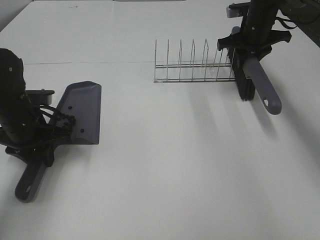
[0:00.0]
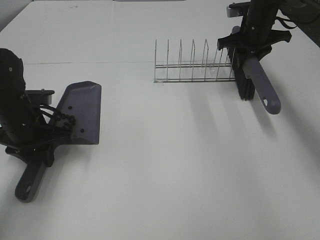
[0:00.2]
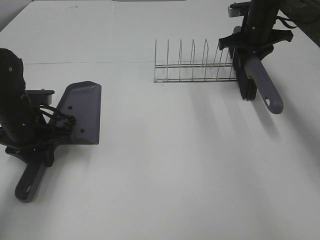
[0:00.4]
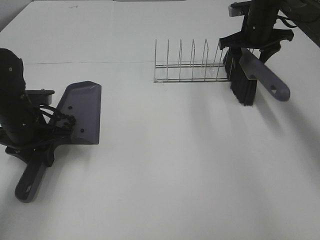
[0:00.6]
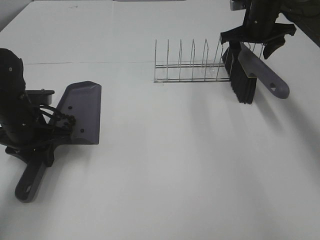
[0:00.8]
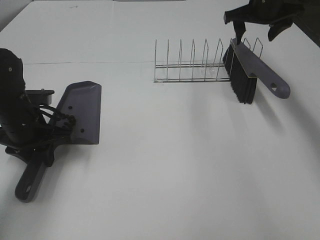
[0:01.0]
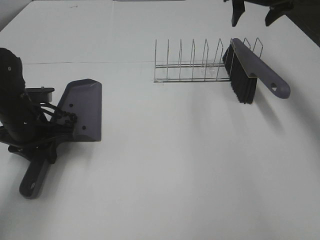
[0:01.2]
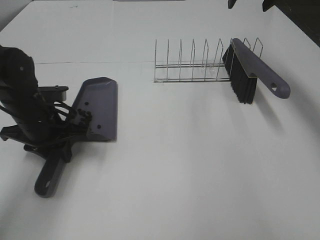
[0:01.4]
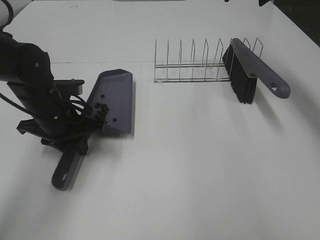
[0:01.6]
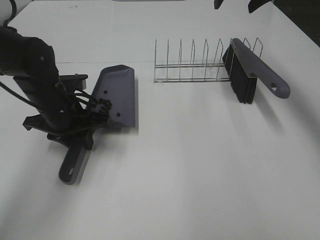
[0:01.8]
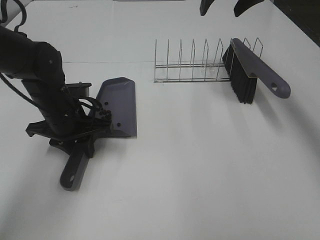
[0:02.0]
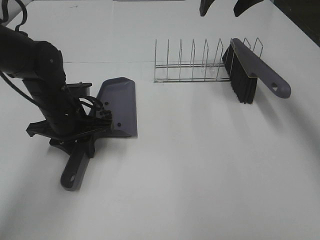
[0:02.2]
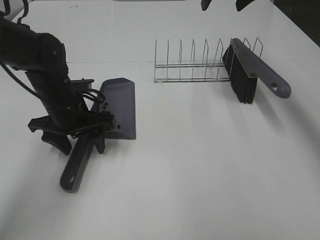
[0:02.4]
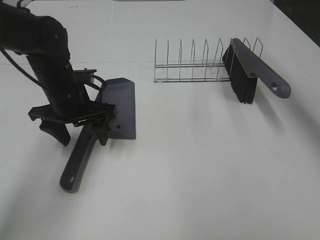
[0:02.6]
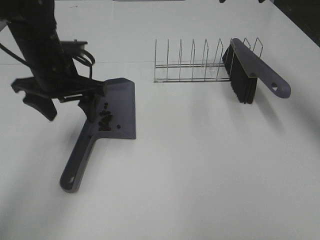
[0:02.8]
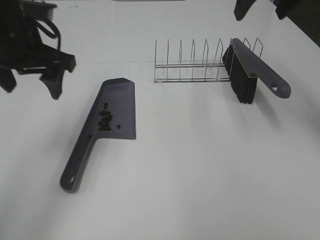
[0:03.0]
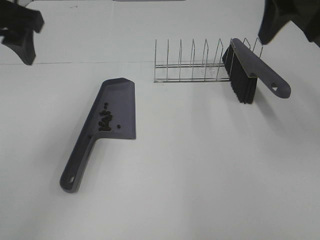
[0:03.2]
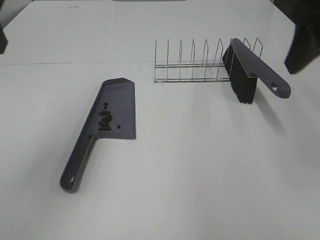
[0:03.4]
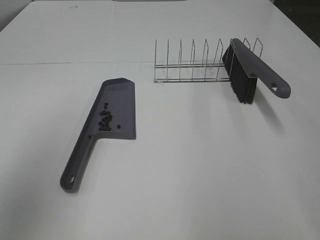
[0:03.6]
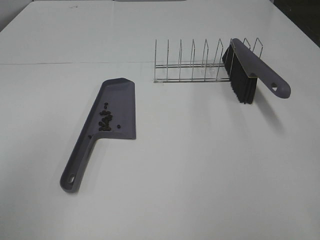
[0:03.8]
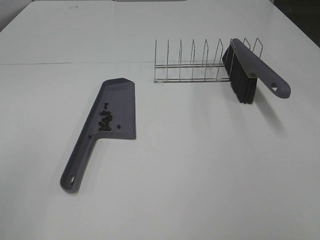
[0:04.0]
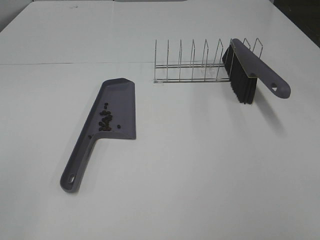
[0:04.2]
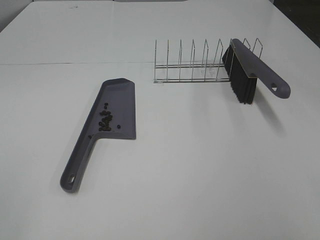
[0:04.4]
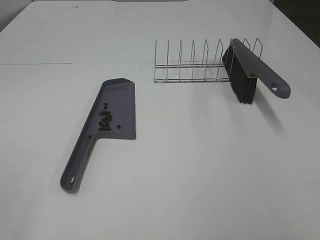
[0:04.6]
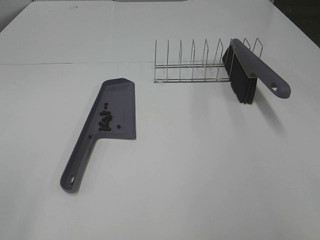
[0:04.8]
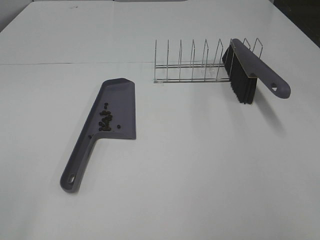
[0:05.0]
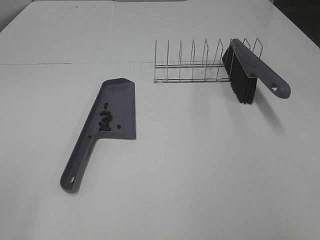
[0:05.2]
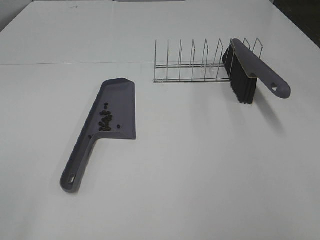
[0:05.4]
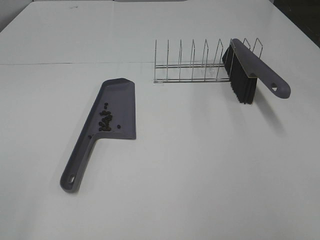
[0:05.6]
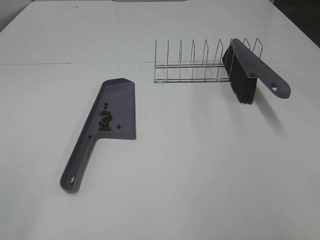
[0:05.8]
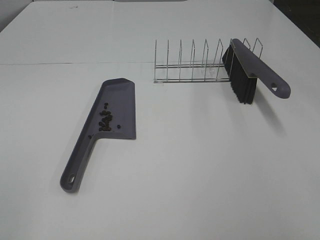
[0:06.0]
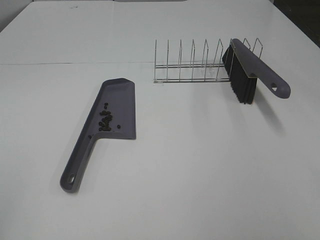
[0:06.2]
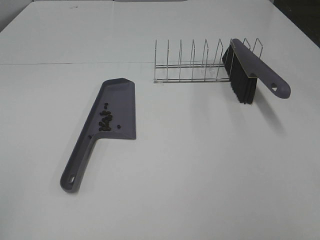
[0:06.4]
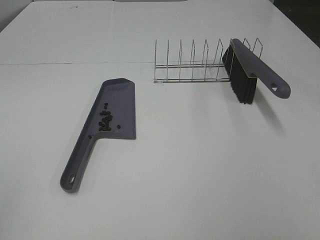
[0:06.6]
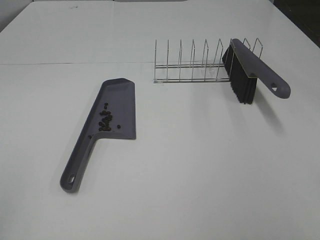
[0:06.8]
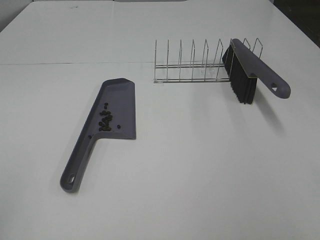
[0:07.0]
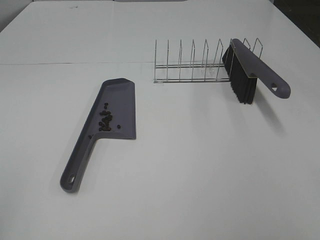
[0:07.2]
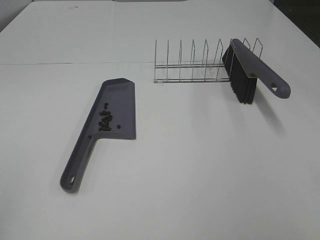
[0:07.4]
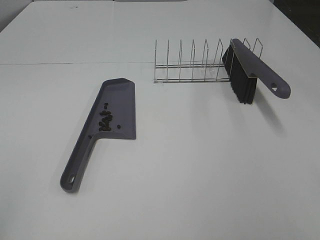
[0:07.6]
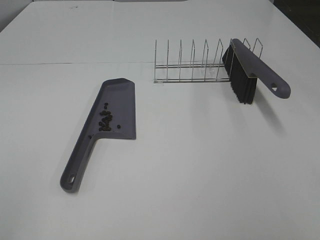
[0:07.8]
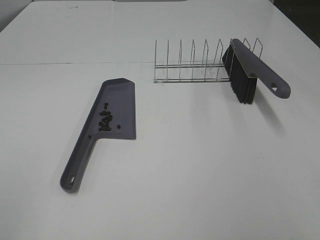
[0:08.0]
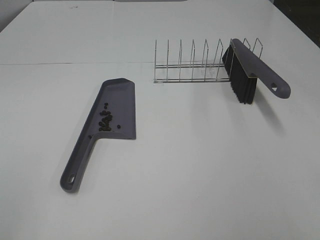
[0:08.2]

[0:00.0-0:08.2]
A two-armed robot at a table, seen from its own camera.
Task of the whole recording: Sweep Coffee Bean.
Step, 0:00.8 to 0:02.4: Left hand:place the dustpan on the table.
0:00.0 to 0:01.6: The right gripper goes approximately 15 cm upward, and opens, while the left gripper moves to the right, approximately 5 cm.
0:01.6 to 0:03.2: The left gripper travels upward by roughly 25 cm, and opens, while the right gripper shifts about 20 cm backward.
0:03.2 to 0:05.0: The left gripper travels backward and to the left by approximately 30 cm, while the right gripper moves backward, approximately 30 cm.

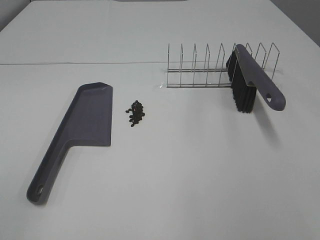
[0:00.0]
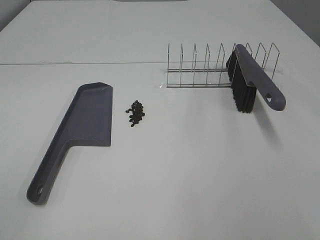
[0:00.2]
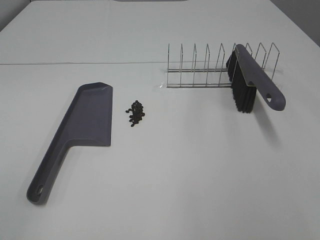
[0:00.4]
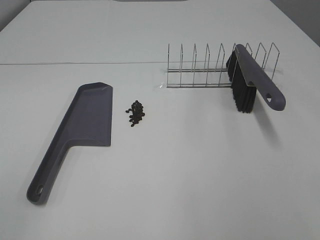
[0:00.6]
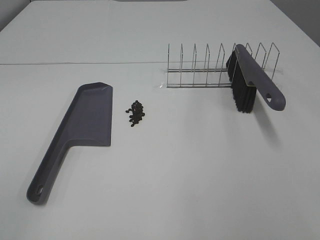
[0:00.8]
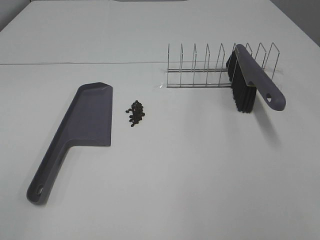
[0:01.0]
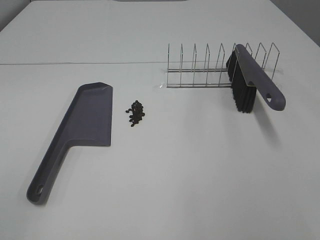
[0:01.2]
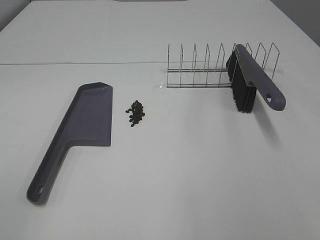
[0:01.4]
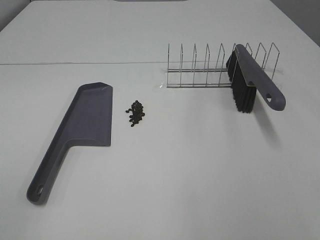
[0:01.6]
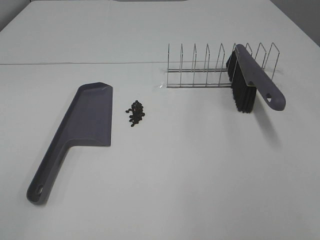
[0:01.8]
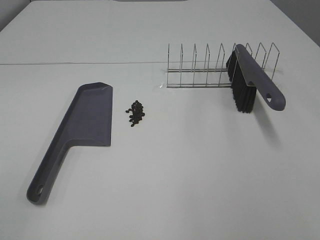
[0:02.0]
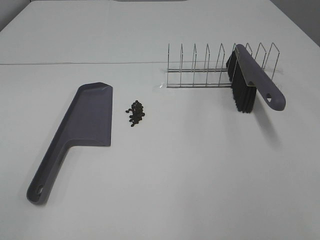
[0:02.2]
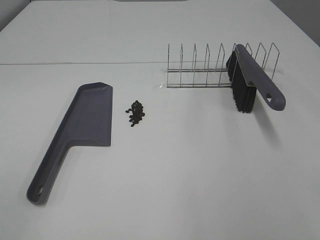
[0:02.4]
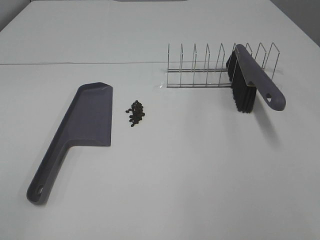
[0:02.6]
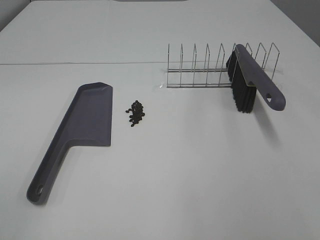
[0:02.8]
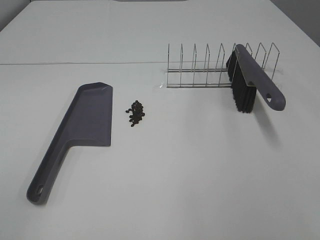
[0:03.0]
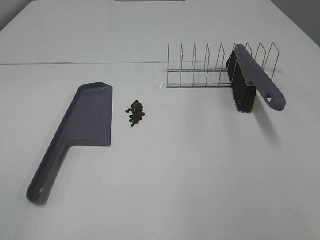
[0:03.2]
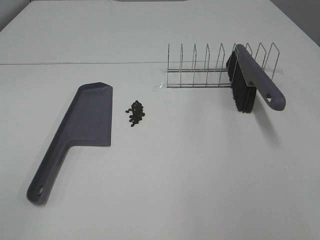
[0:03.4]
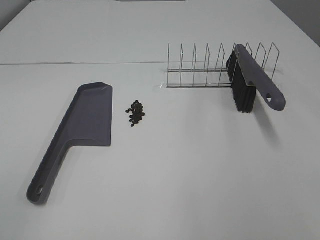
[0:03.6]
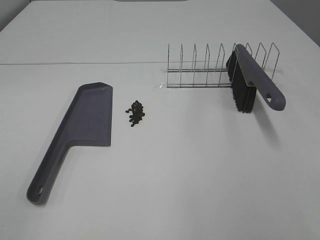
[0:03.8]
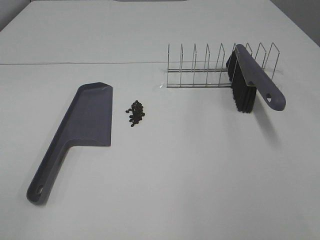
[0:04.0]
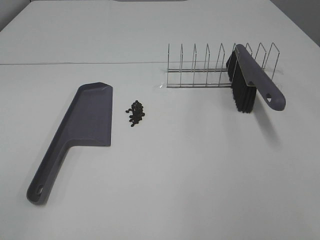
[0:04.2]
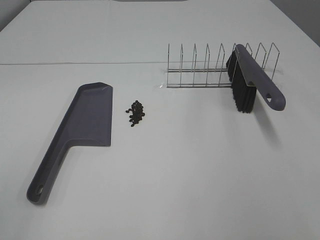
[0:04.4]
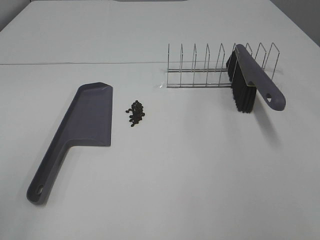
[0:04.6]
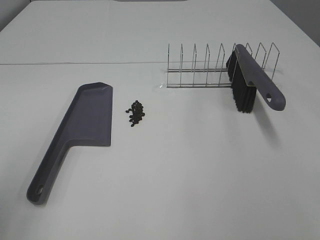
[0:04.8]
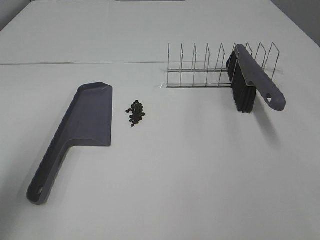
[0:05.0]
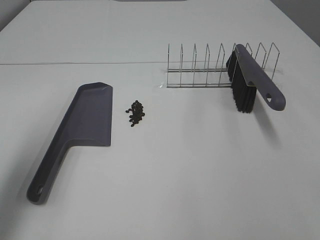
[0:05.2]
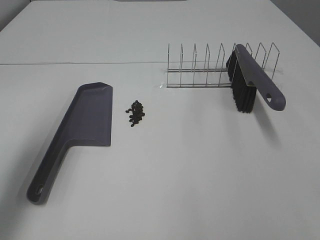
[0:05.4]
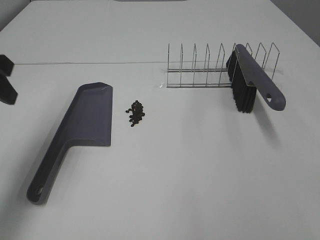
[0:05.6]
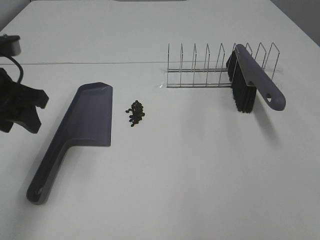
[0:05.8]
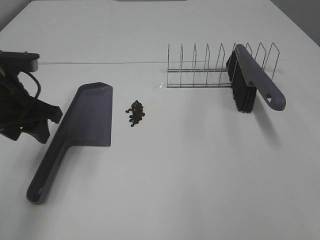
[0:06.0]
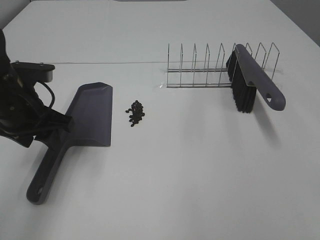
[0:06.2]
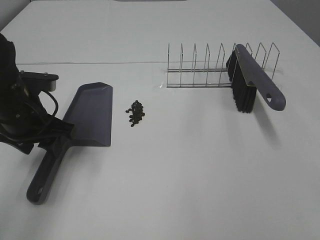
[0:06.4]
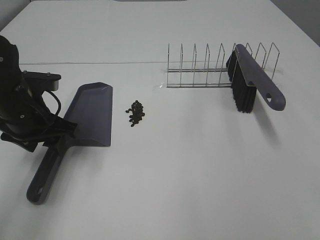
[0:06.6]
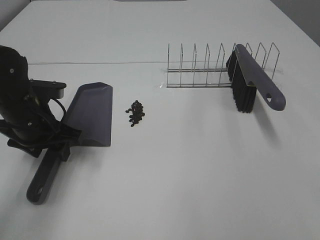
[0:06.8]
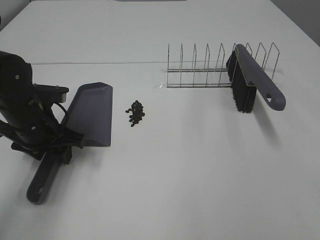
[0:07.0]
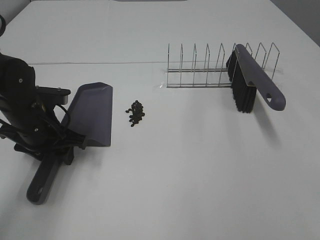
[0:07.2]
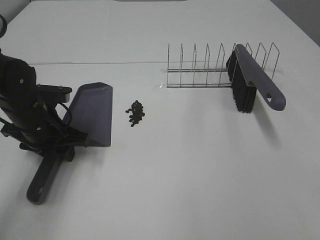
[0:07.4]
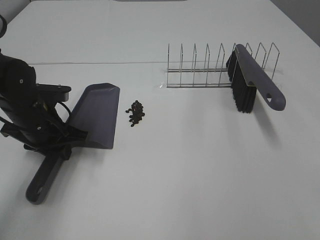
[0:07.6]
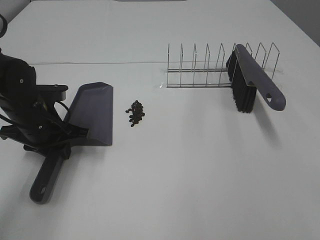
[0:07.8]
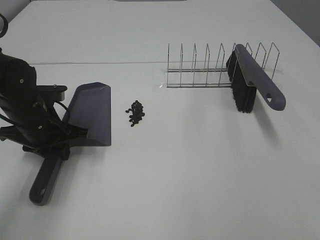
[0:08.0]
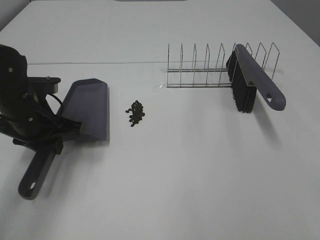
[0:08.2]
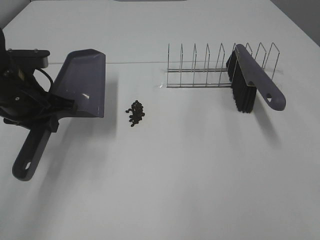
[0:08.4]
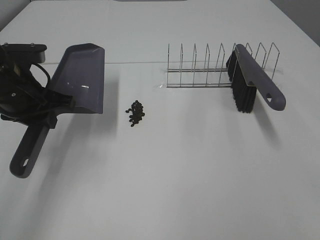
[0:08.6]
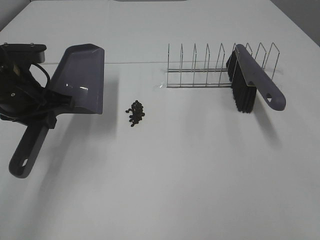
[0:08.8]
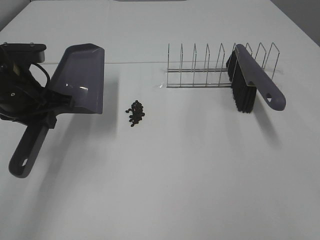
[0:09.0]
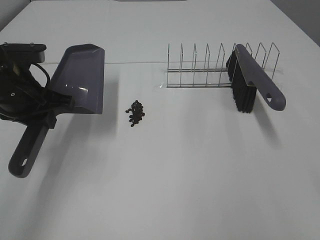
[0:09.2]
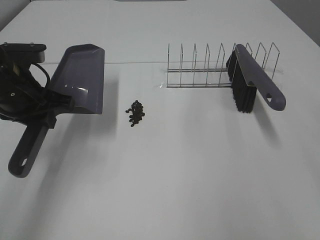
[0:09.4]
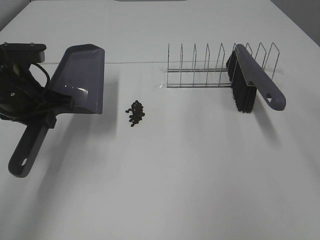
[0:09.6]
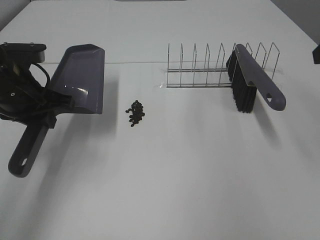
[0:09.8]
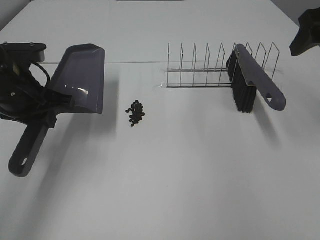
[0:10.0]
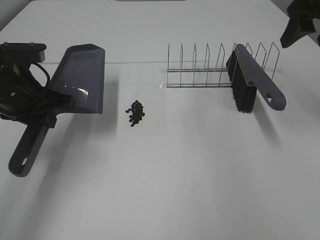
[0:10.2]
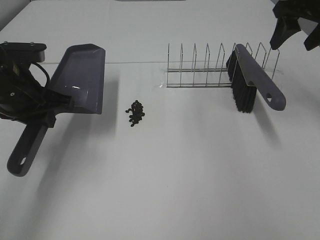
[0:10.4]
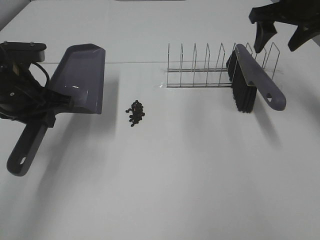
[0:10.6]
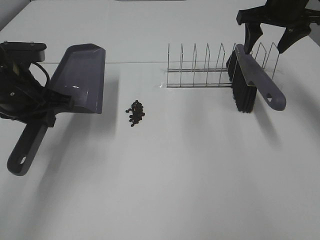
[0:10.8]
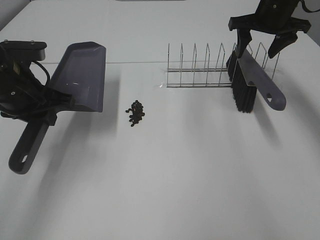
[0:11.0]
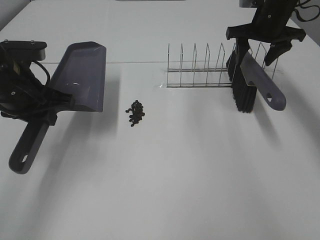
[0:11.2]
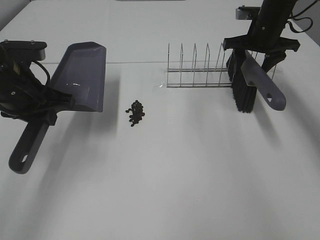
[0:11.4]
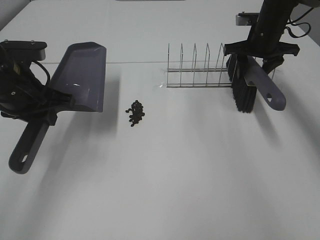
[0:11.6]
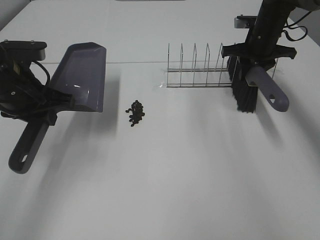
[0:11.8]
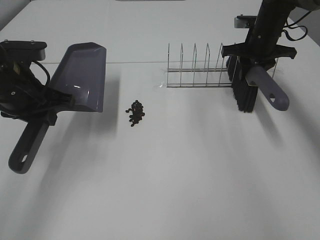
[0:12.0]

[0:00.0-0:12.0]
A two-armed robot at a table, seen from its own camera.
Task of the whole recording: Sweep Coffee Bean.
Step, 0:00.0 to 0:07.8: Left hand: grab the dustpan.
Step, 0:08.6 to 0:11.8: Right hand:grab the broom.
0:00.0 to 0:03.0: Both grippers stay about where they are.
0:04.4 to 0:06.0: The left gripper goes roughly 30 cm forward.
0:06.0 to 0:07.6: The left gripper moves downward, about 10 cm, and closes.
0:07.6 to 0:09.0: The left gripper travels upward by approximately 10 cm.
0:09.0 to 0:10.4: The right gripper shifts approximately 40 cm forward.
0:10.4 to 0:12.0: The right gripper heads downward and forward, covering some 15 cm, and closes its fingers.

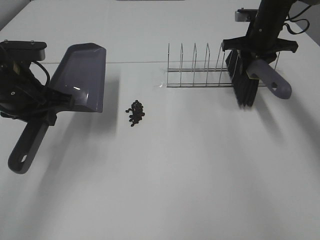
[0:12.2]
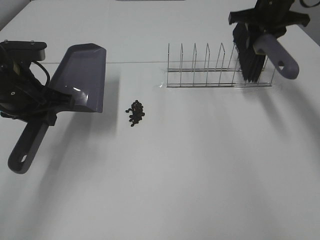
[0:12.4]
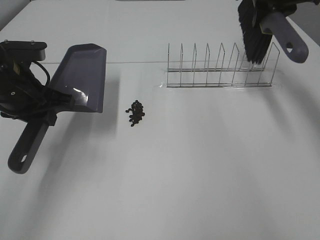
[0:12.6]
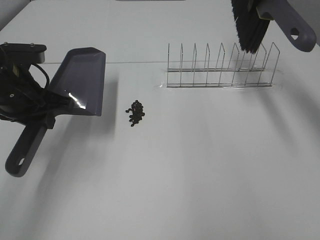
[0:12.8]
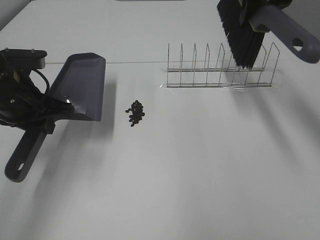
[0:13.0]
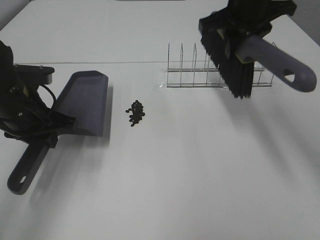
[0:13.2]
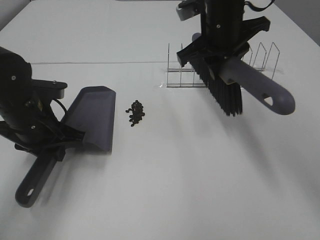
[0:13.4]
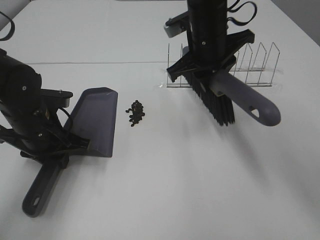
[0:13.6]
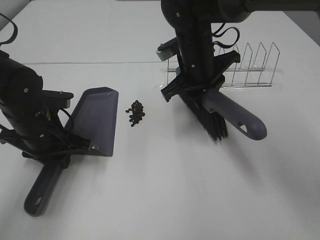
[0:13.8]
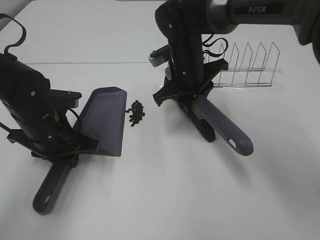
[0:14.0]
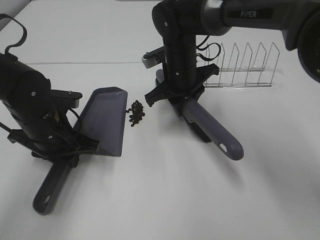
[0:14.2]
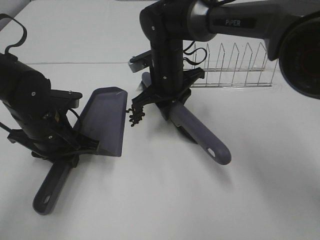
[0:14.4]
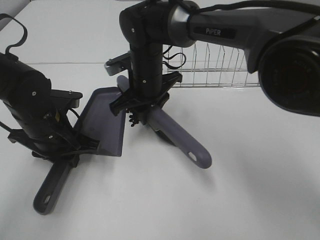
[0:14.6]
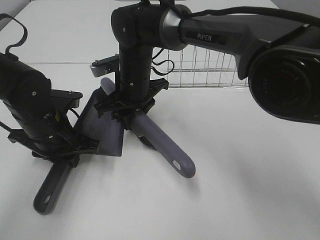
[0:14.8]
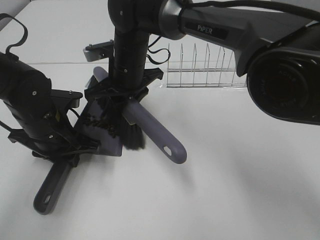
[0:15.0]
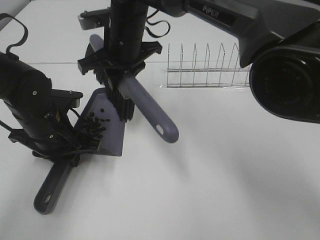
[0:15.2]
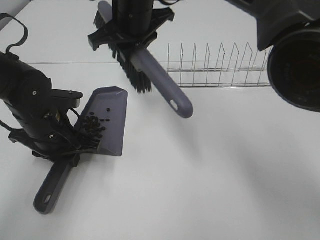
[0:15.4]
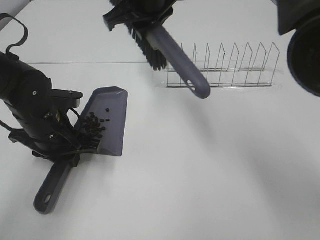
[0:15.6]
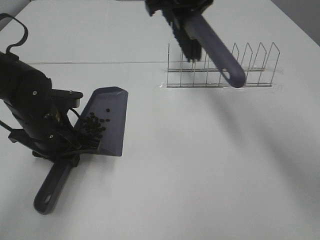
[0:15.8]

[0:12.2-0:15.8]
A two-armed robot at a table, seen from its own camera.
Task of the whole recording: Sweep Coffee Bean.
Step, 0:12.2 to 0:14.2: Left hand: move the dustpan to the left side of the coffee beans.
Step, 0:12.2 to 0:15.2: Right hand:sweep the coffee beans into the dustpan.
0:12.2 to 0:14.0: The left gripper heads downward, covering roughly 10 cm, while the right gripper shifts roughly 20 cm to the left and backward, and goes upward and returns, about 15 cm each way.
0:14.0 to 0:15.8: The right gripper moves upward, some 15 cm.
